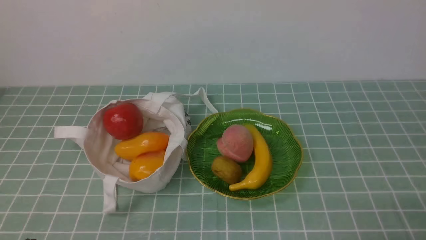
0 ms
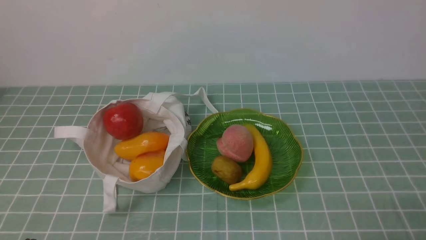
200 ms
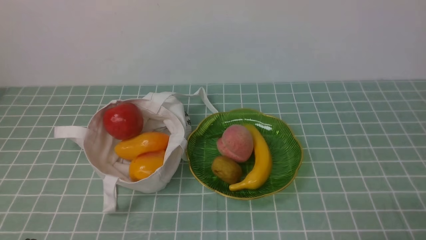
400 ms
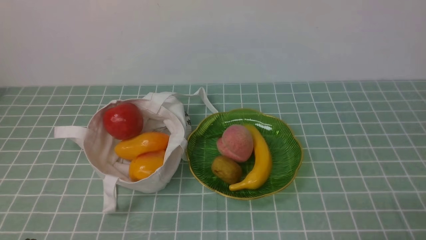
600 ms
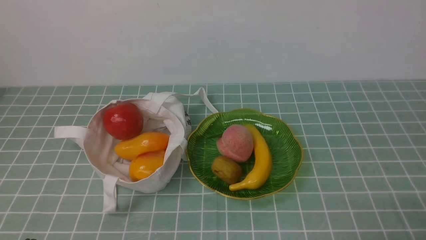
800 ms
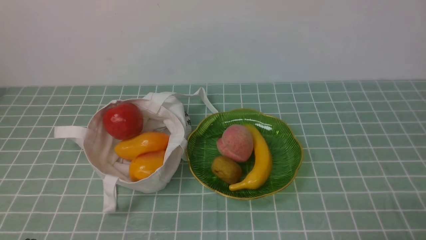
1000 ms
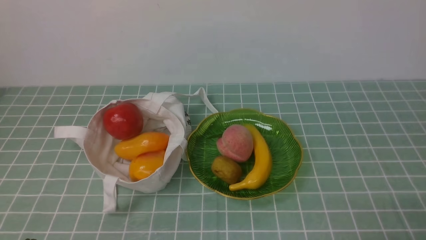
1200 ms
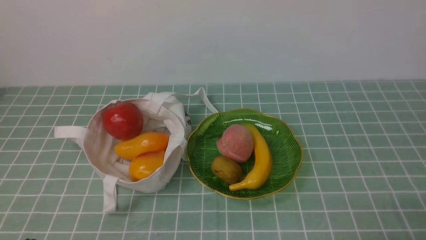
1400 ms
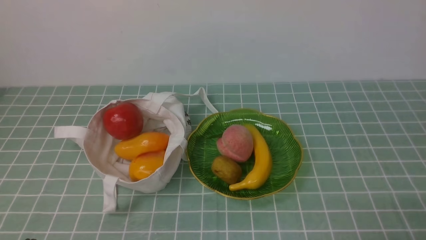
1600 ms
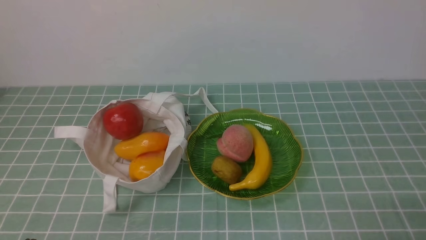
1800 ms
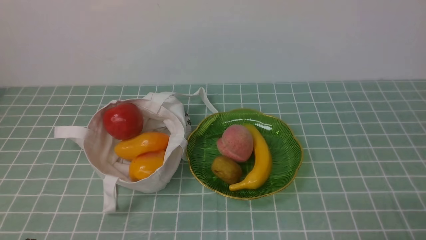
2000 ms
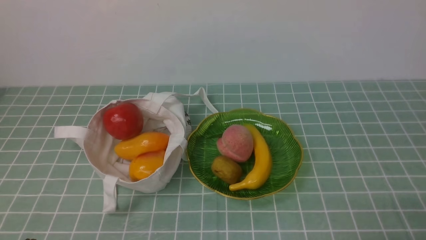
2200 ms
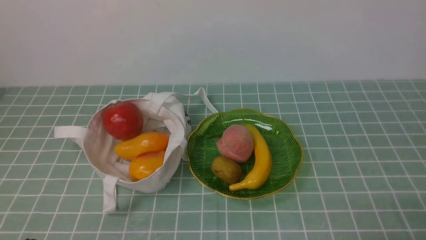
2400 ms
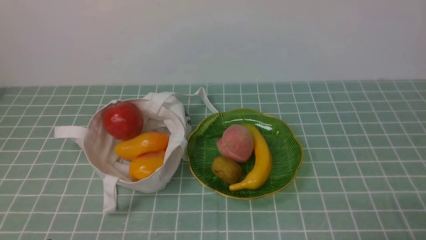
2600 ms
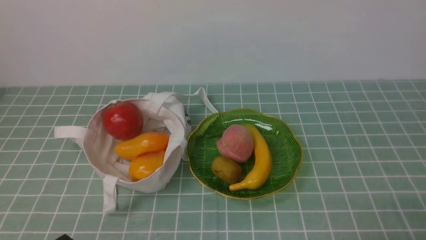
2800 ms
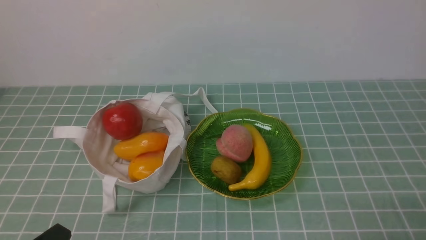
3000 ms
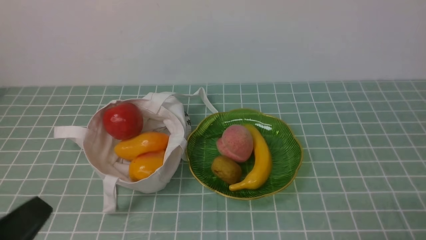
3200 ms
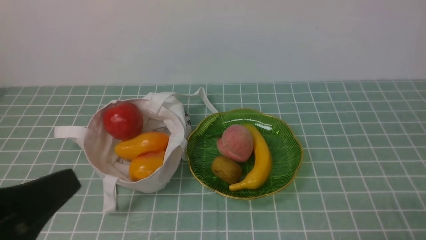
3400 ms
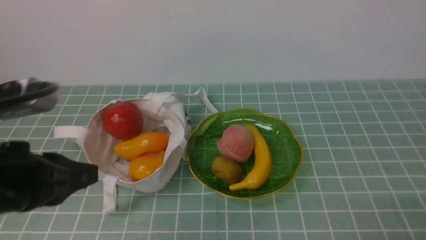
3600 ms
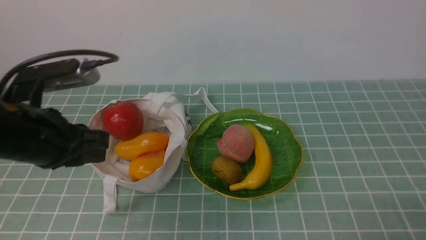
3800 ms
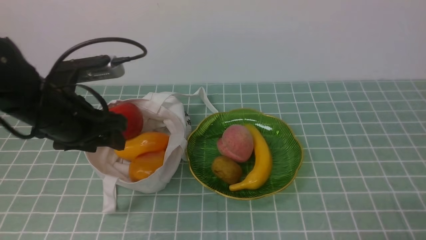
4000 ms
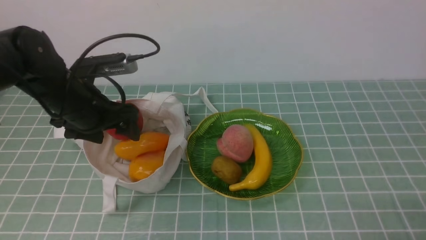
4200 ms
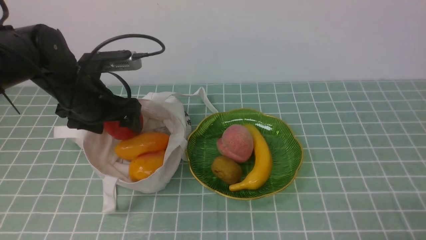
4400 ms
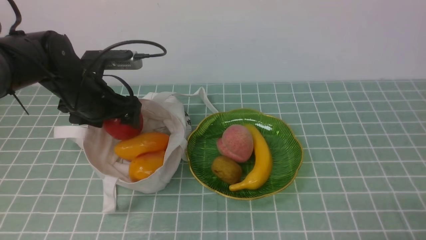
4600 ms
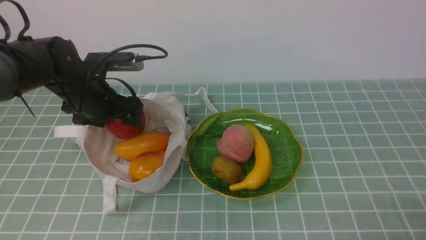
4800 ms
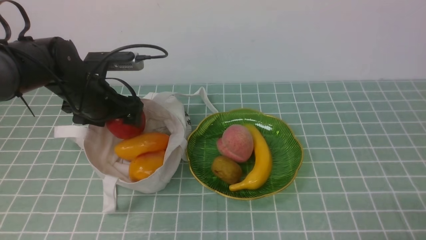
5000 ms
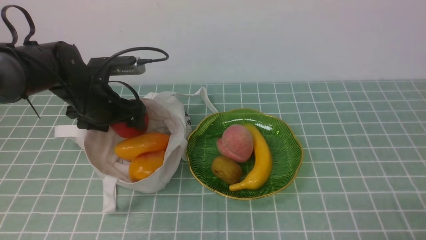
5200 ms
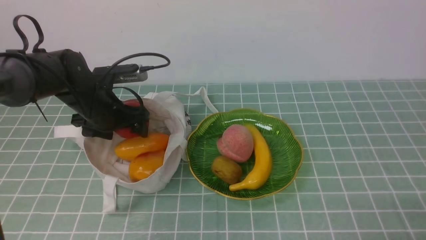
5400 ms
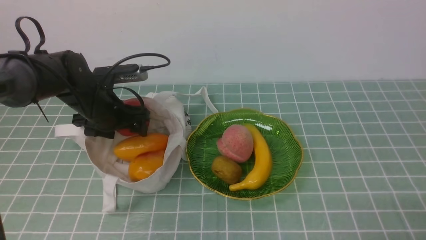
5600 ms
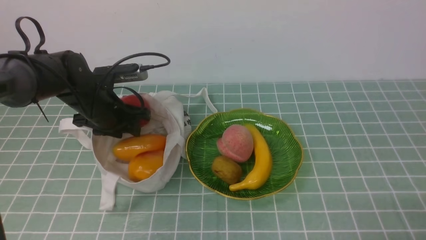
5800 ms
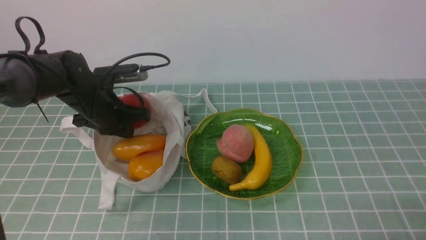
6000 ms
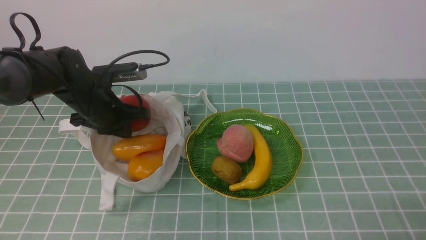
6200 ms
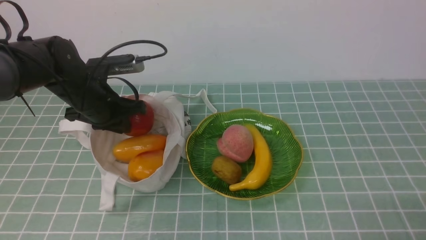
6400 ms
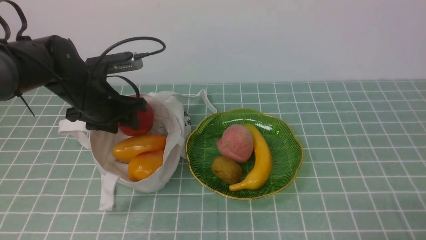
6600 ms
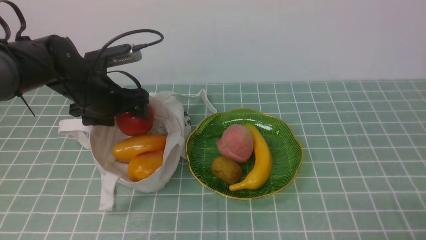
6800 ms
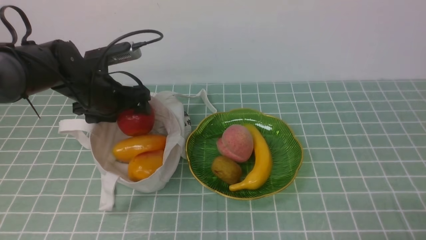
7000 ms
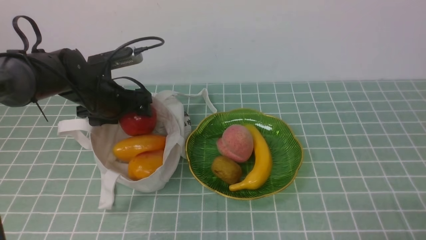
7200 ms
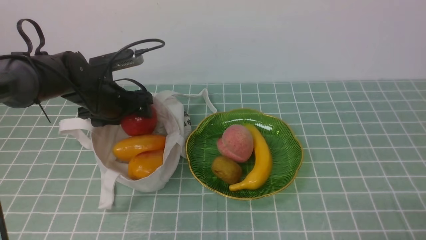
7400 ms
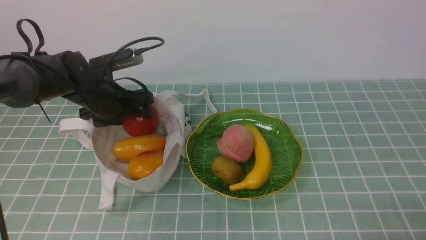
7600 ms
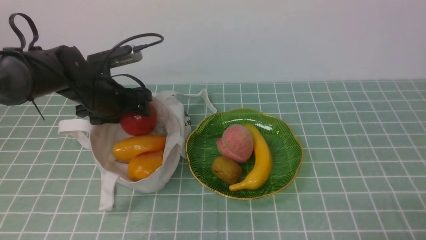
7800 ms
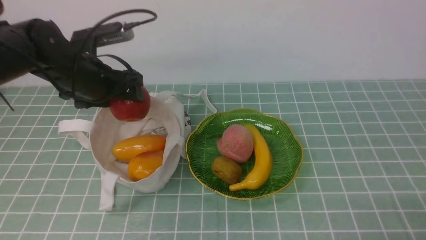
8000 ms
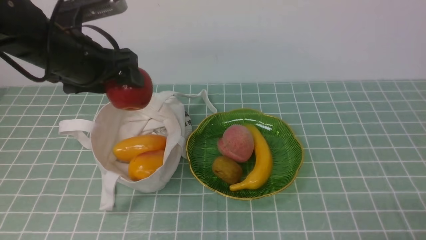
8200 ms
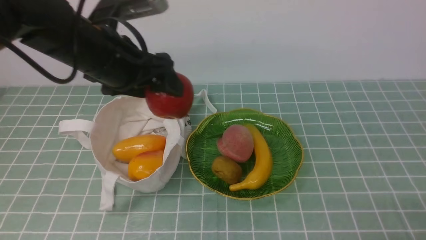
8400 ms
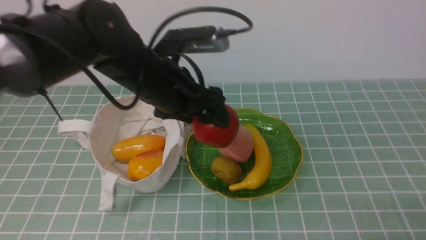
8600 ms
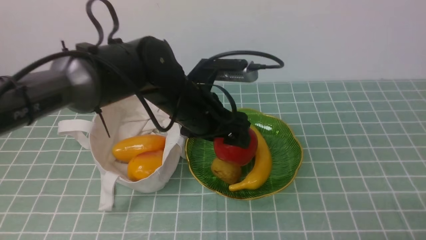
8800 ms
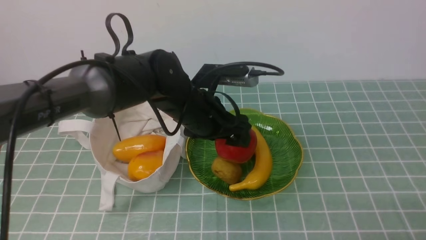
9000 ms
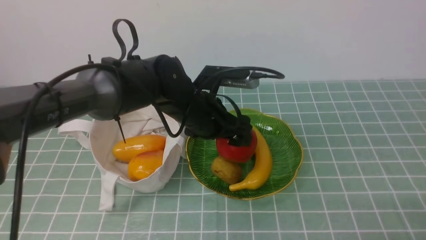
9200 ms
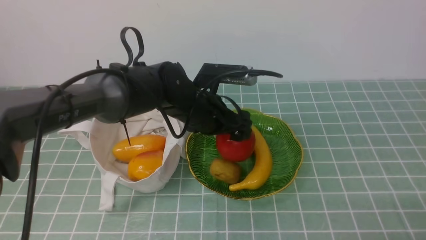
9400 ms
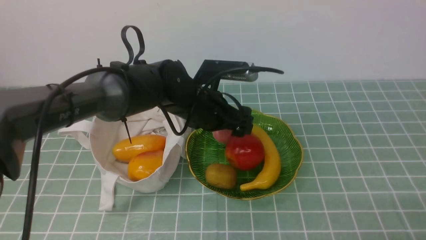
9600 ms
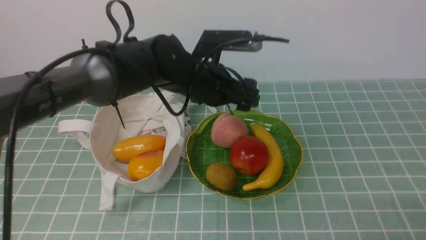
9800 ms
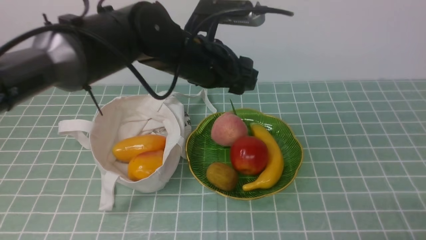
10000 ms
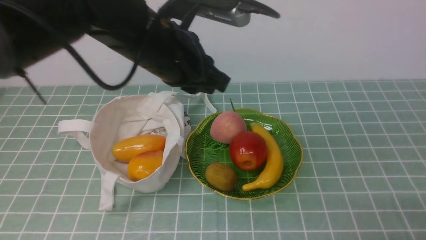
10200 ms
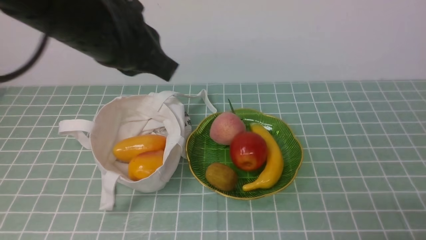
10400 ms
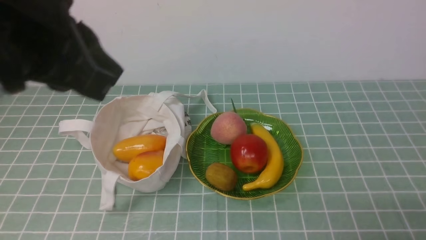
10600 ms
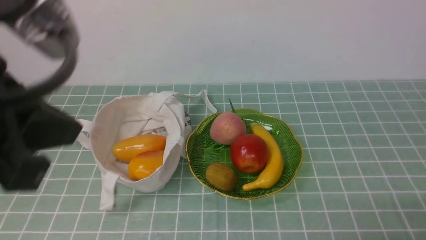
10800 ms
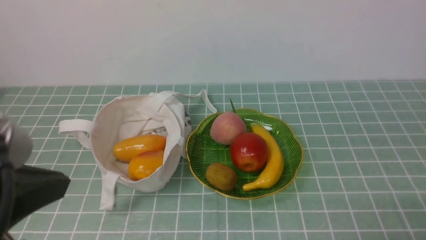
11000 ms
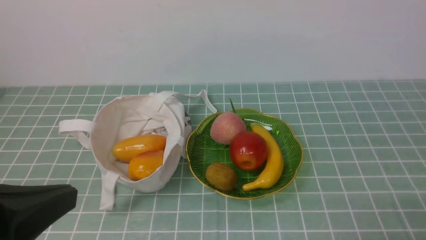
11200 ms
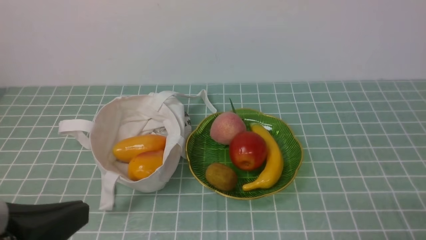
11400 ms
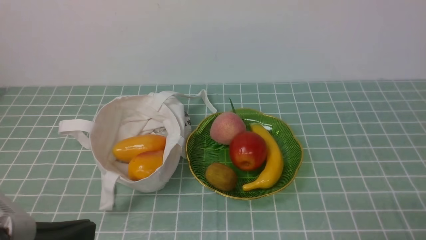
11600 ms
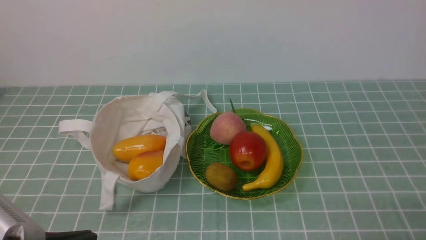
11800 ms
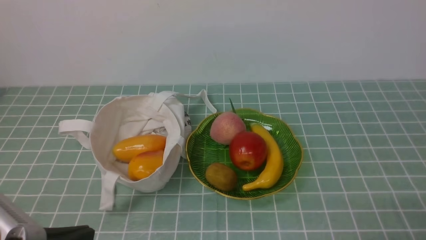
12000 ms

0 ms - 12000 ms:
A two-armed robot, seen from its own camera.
Step, 0 ms - 7800 ms: use the left arm to grab an apple from the bag.
Step, 8200 ms - 9600 ms: use the left arm to put the apple into the empty plate on the right.
3000 ms - 4400 ms: The left gripper moves forward, approximately 30 cm, and opens.
4400 ms - 6000 ms: The left gripper travels downward by about 5 cm, and closes up.
6000 ms - 7600 ms: The left gripper opens its fingers.
7600 ms - 9000 ms: The left gripper is displaced to the right and backward by approximately 15 cm.
9000 ms - 10400 ms: The left gripper moves upward and backward, roughly 15 cm, and closes.
10400 ms - 12000 ms: The left gripper goes approximately 25 cm backward, downward and to the left.

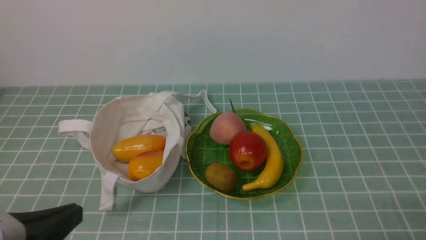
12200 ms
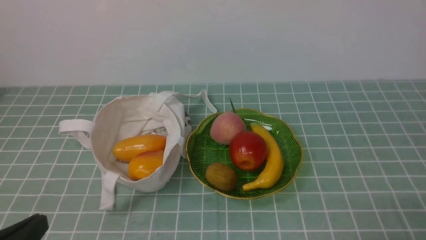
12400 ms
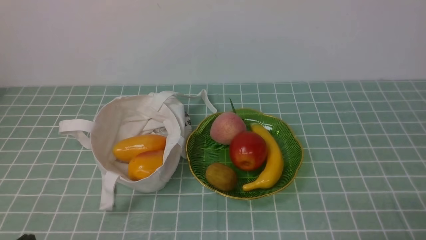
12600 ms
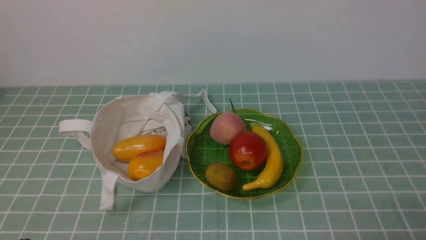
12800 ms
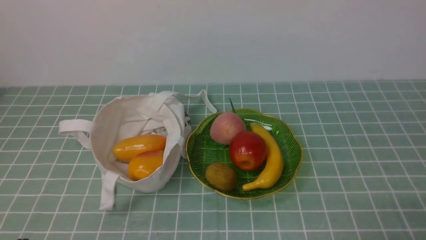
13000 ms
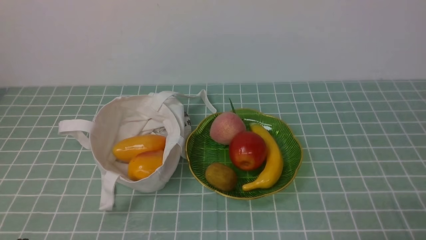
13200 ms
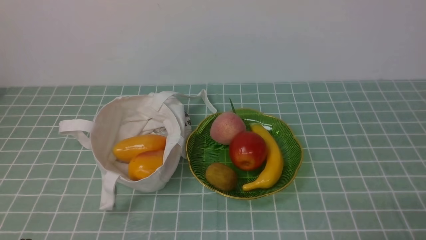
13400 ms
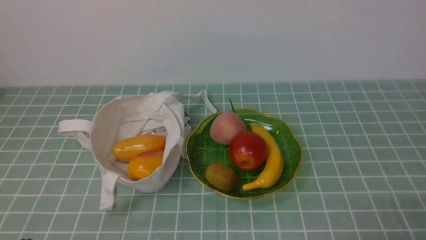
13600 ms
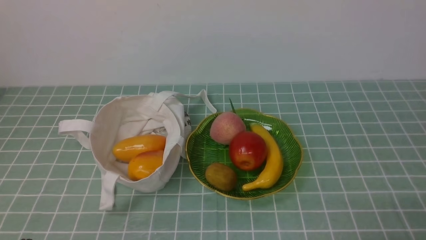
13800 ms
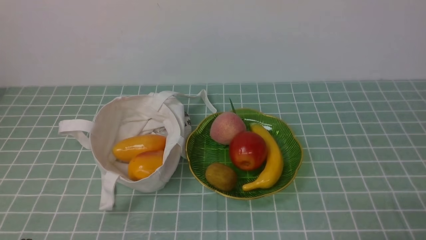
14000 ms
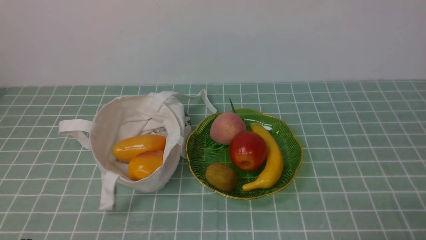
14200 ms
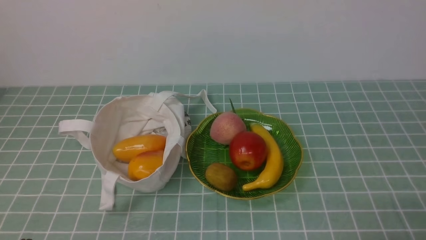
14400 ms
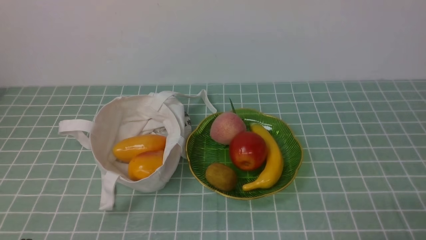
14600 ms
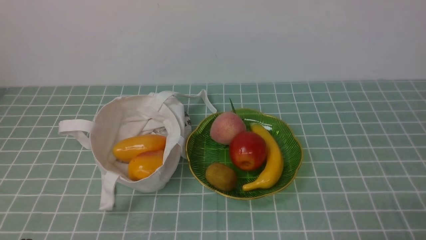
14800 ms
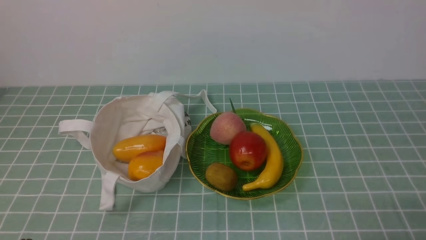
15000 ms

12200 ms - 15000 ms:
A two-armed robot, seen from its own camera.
12200 ms - 13600 ms: The left gripper heads downward, covering roughly 10 cm.
13600 ms - 15000 ms: Both grippers stay put.
